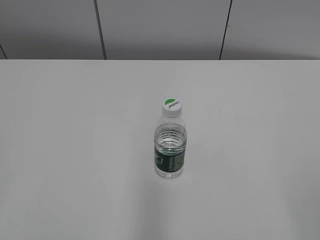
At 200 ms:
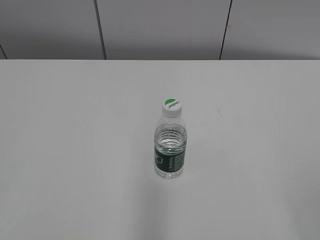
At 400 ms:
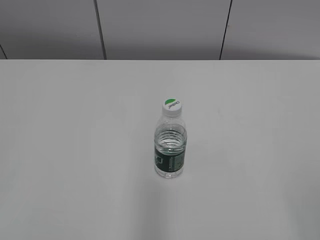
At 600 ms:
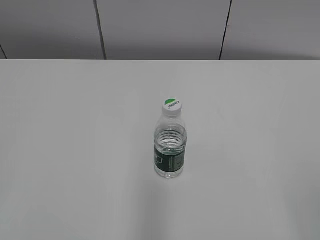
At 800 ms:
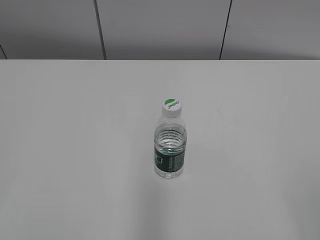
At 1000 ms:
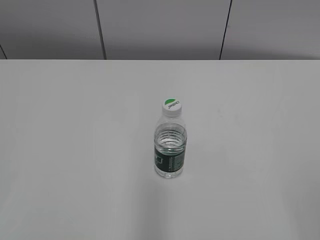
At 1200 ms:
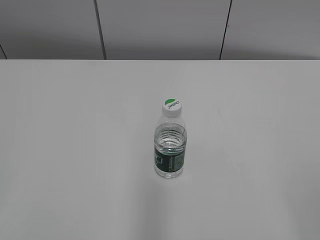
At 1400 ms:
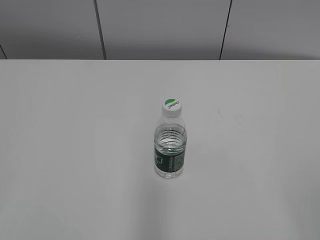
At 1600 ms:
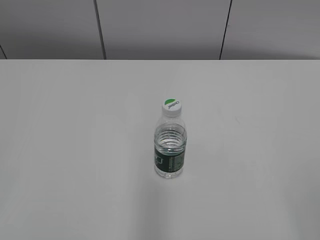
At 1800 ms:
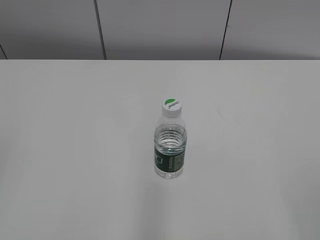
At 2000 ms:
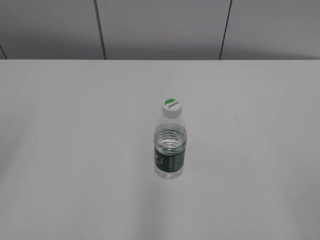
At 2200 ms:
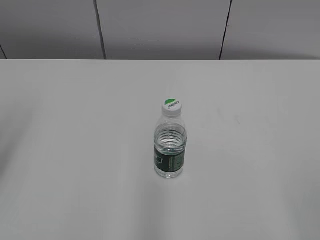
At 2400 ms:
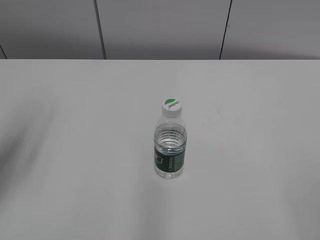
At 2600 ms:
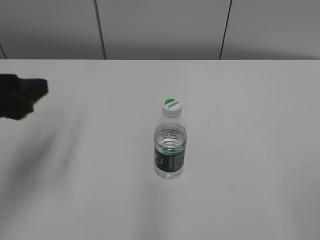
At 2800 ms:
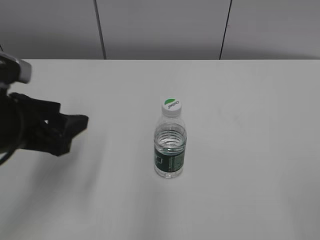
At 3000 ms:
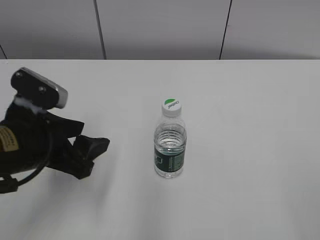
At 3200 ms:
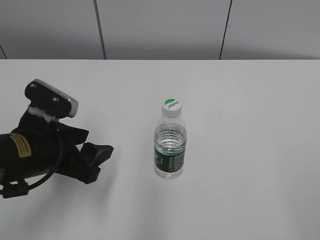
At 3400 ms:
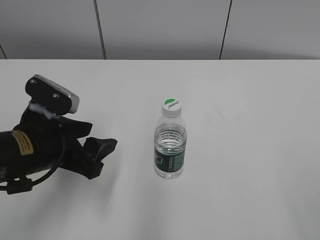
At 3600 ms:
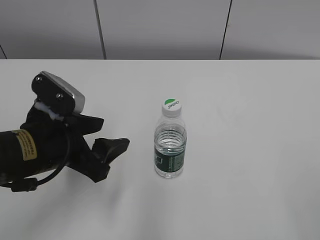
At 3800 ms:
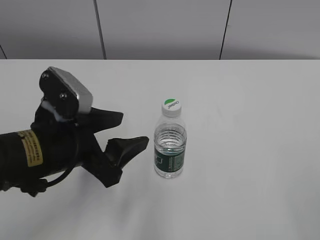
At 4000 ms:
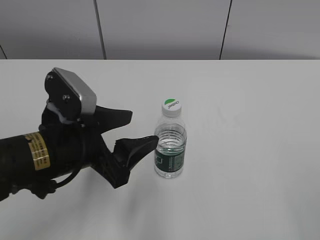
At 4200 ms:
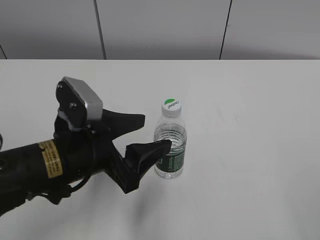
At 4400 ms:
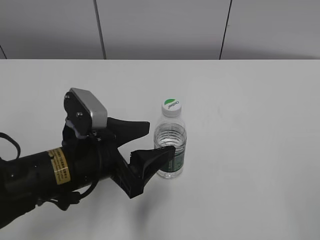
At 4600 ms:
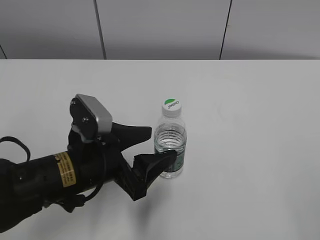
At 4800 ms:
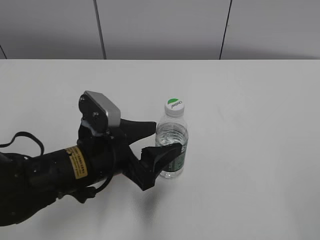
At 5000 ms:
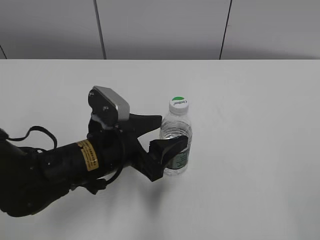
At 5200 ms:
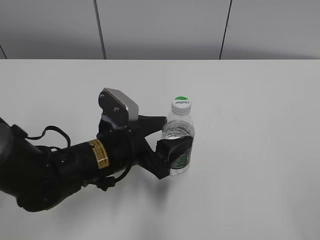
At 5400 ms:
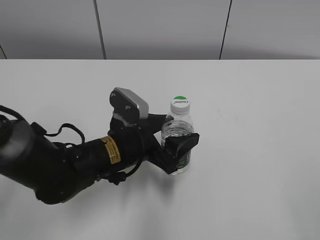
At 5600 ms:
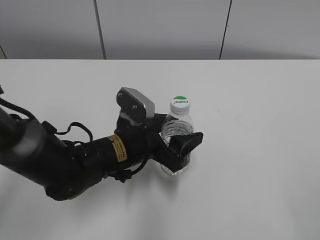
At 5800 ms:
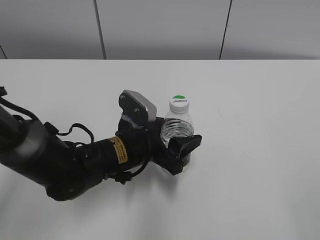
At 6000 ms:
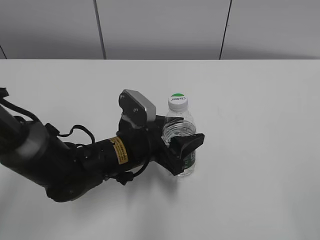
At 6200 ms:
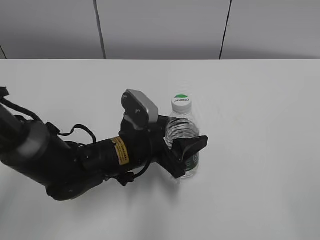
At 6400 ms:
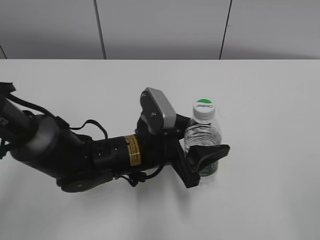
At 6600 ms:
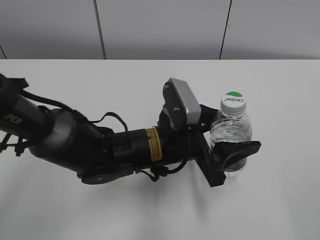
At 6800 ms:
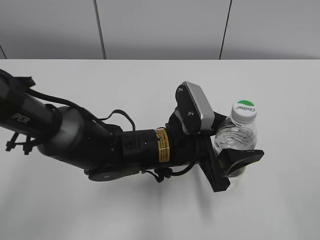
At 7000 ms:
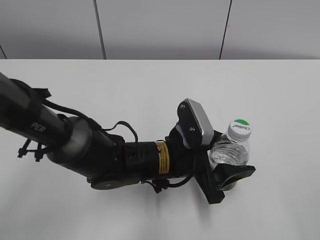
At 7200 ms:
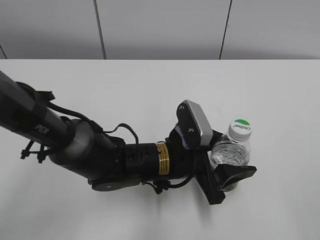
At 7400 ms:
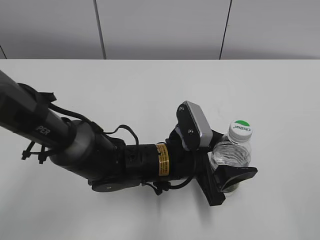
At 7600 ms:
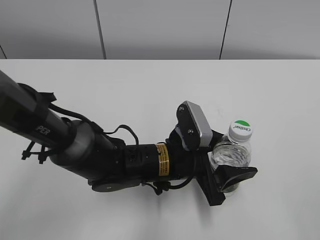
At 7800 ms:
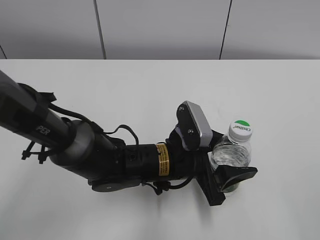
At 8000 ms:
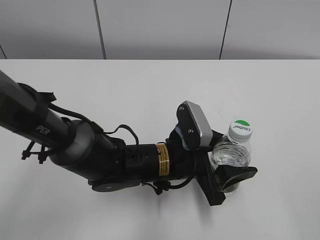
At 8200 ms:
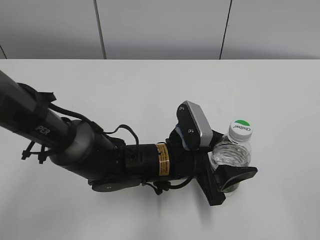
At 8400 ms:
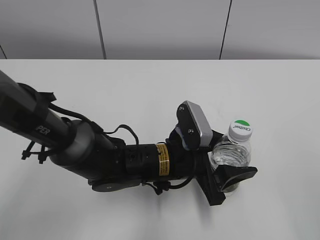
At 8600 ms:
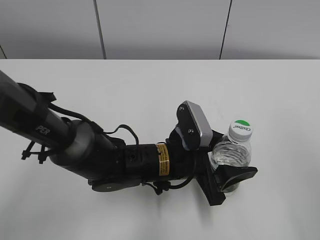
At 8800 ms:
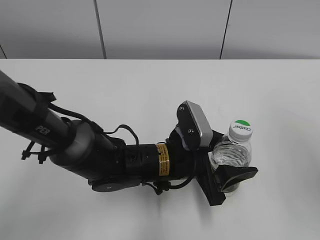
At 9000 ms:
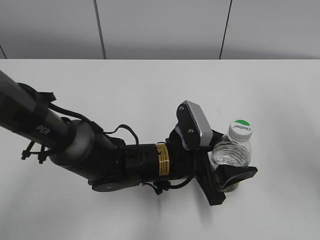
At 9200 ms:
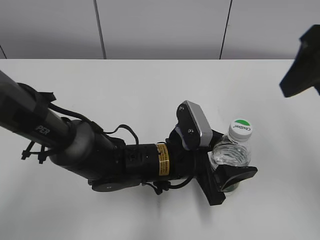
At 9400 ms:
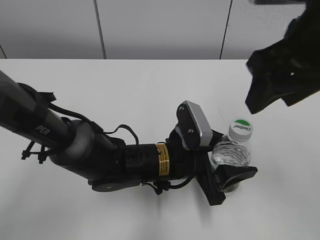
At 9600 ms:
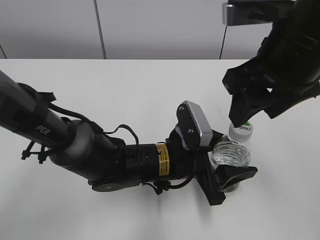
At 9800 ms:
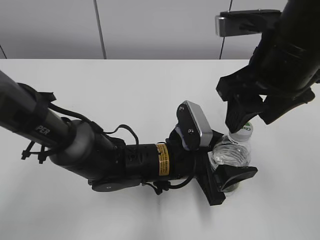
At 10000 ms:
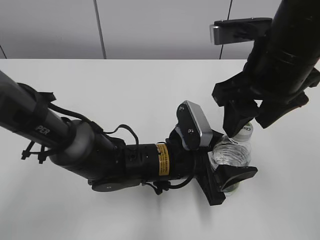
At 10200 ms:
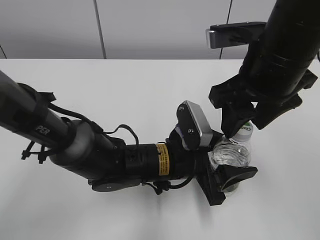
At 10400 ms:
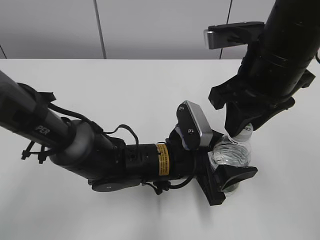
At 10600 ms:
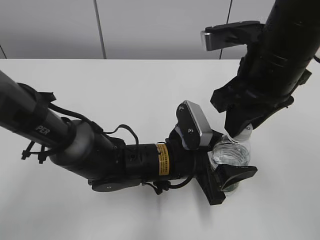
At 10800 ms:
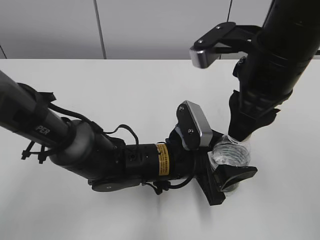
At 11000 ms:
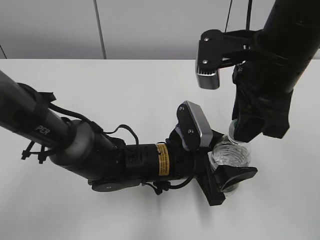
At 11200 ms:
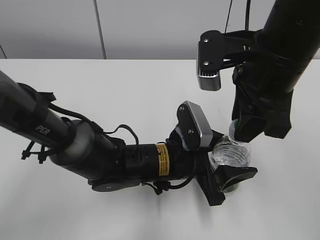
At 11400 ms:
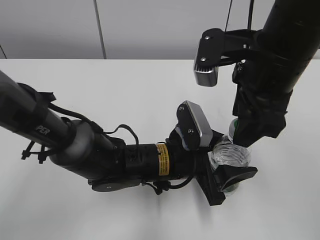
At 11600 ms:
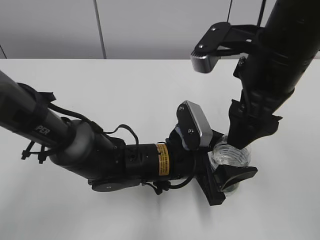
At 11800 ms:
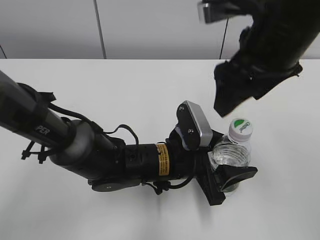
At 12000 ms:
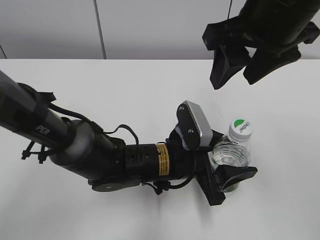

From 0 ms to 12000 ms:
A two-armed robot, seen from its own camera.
Step, from 0 ms to 5800 ms: Grab the C'estbon with the left hand.
Step, from 6000 ms to 7800 ms: Move the C'estbon to the right with the left hand.
From 1600 ms to 3000 ms: The left gripper shifts roughly 25 cm forward, to the right and downward, and opens up.
From 3000 ms to 4400 ms: The left gripper moves to the right, about 5 cm.
From 4400 ms to 6000 ms: The left gripper shifts about 10 cm forward, to the right and downward.
From 6000 ms to 7600 ms: The left gripper shifts roughly 5 cm to the right.
From 7600 ms to 9000 ms: The right gripper travels forward by approximately 20 cm.
From 9000 ms to 10400 ms: The right gripper moves to the left, downward and forward, approximately 15 cm, and closes its fingers.
From 10400 ms to 12000 ms: The right gripper is displaced upward by roughly 5 cm, and opens up.

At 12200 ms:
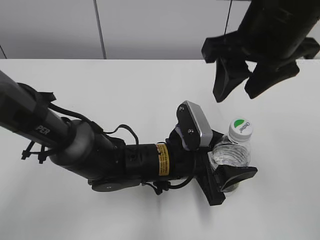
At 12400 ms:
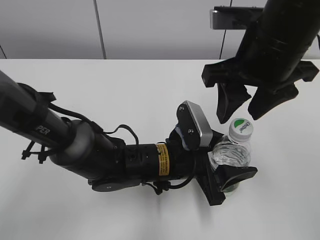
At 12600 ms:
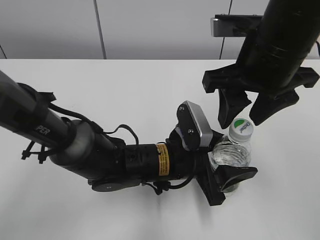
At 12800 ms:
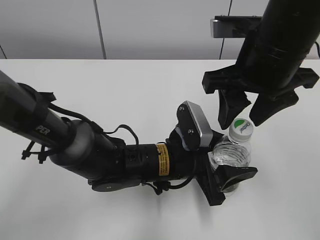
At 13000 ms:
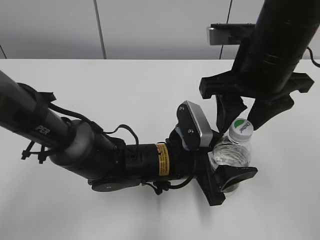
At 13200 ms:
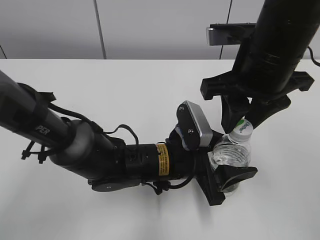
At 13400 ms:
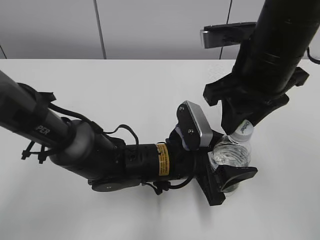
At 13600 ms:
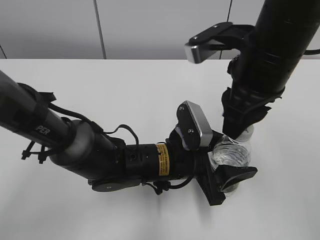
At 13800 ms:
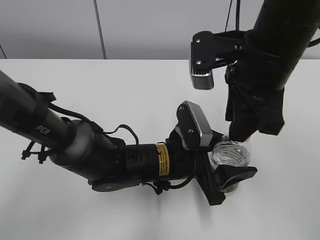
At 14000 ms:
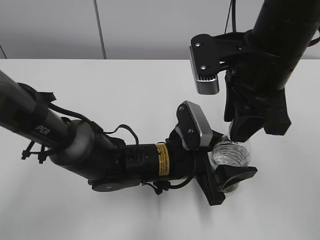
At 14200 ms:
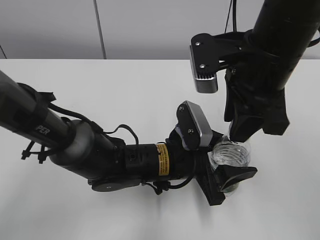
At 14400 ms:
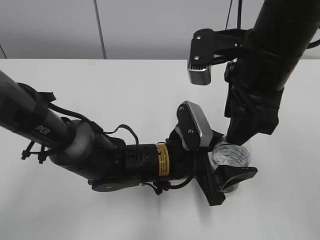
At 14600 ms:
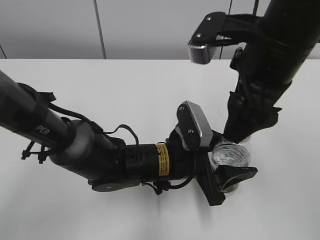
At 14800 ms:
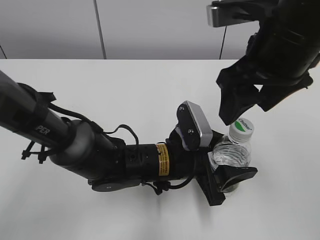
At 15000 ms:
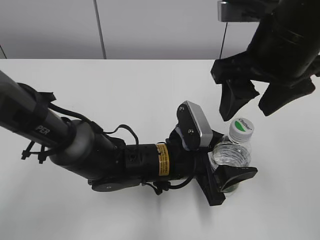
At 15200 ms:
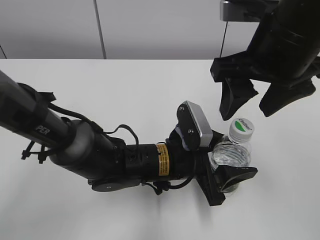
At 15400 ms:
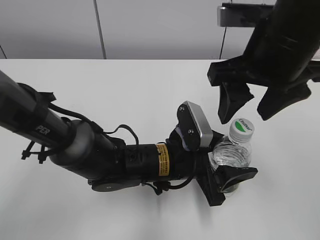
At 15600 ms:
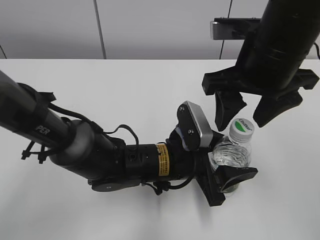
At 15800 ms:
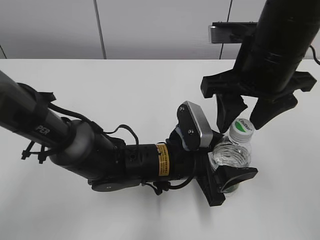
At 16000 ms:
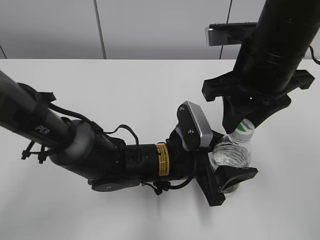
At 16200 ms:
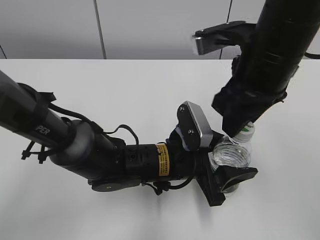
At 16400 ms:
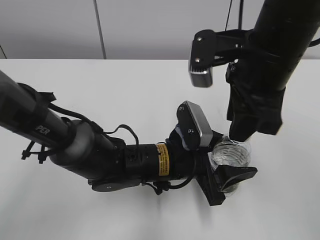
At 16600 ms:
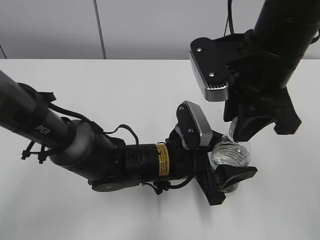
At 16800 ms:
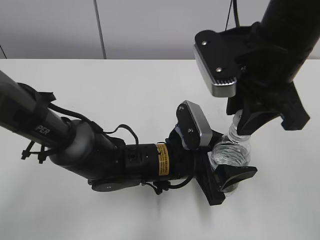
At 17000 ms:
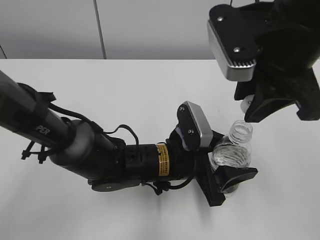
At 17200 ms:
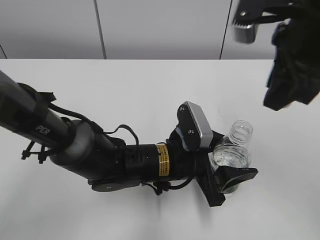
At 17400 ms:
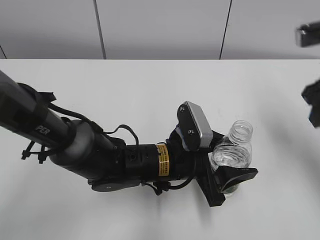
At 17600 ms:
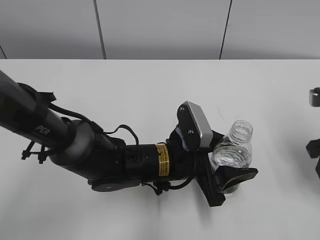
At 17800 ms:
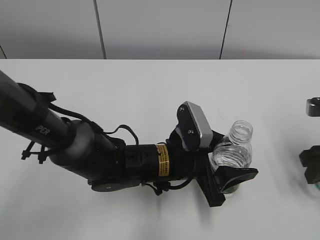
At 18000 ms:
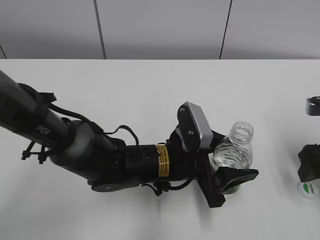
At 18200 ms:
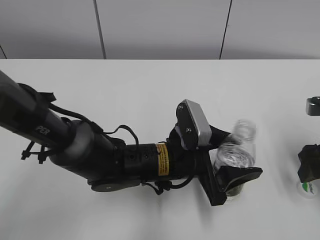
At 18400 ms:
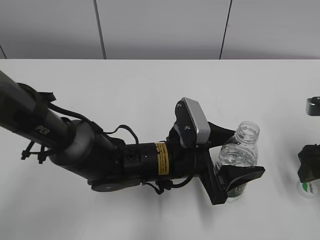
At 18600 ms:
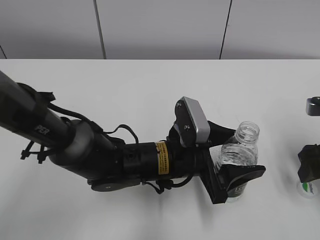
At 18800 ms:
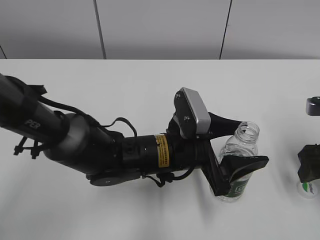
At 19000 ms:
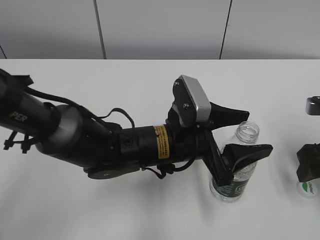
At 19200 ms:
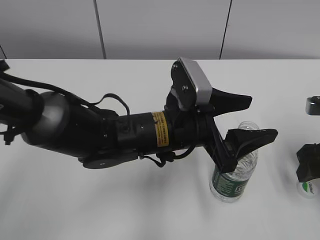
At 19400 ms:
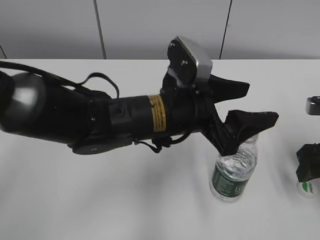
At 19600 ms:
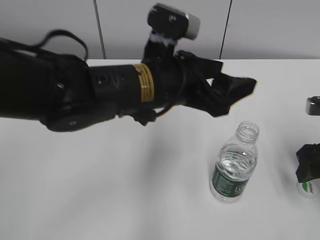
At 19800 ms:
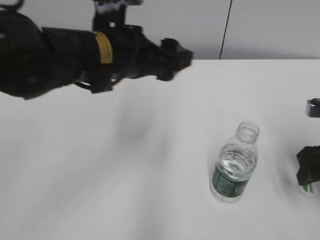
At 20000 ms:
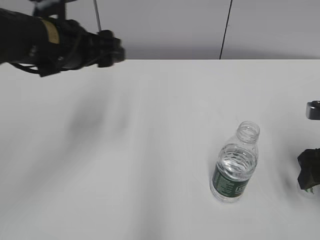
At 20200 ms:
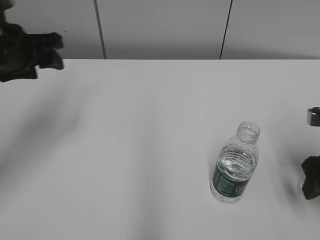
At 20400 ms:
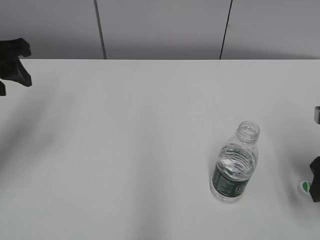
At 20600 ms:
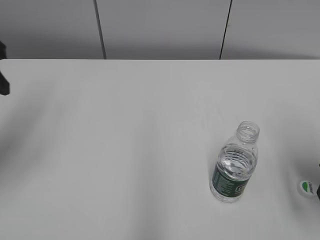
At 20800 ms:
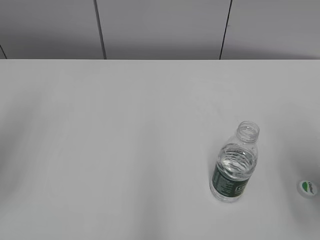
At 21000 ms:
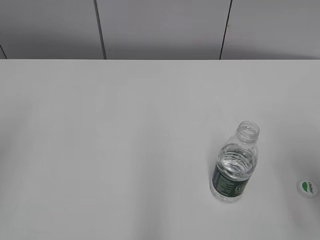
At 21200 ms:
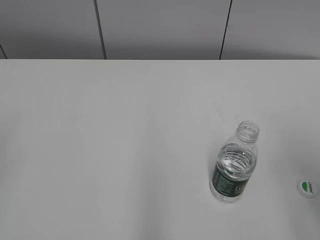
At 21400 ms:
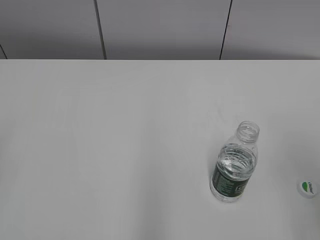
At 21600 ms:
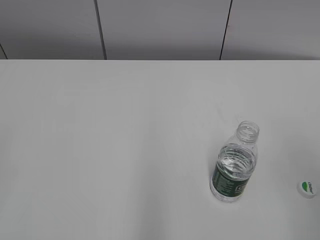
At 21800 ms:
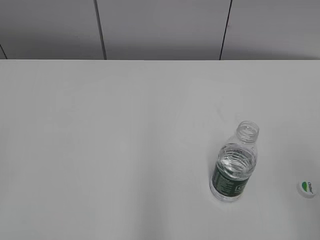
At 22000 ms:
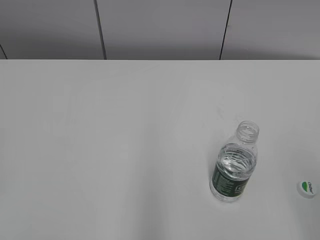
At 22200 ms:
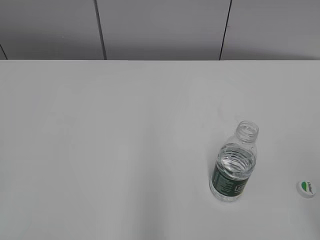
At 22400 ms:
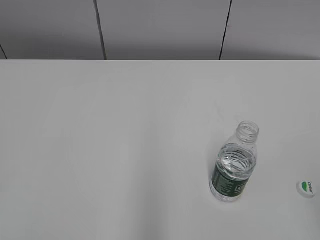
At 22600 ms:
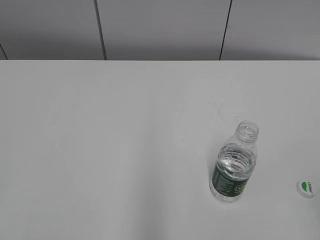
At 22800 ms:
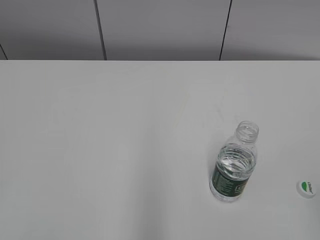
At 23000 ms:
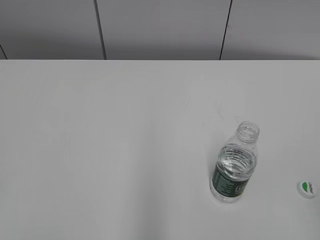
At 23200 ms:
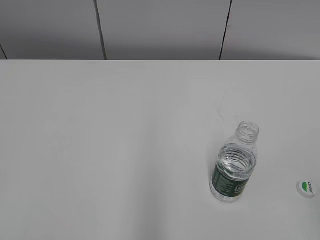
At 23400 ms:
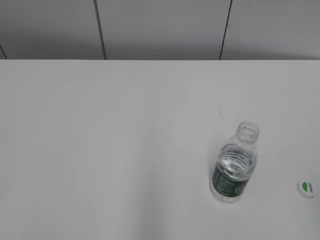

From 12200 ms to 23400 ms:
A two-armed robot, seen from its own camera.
Step, from 12200 ms to 16600 ms: Twist the bottle cap with the right hand.
Step, from 17000 ms to 18200 ms: Place the bottle cap on the table with the right hand.
Step, from 18600 ms to 18800 ms: Place the C'estbon with the left hand.
From 12200 ms to 13800 ms: The right gripper closes its fingers.
From 13800 ms to 15400 ms: The right gripper opens.
From 15400 ms to 17000 ms: The right gripper closes.
From 17000 ms to 18600 ms: The right gripper heads downward and to the right, covering about 20 cm, and opens its fingers.
From 18600 ms to 20200 ms: The left gripper heads to the left and upward, covering roughly 30 cm, and closes.
From 20200 ms to 21800 ms: The right gripper travels backward and upward by approximately 20 cm, while the left gripper travels backward by some 30 cm, and closes.
